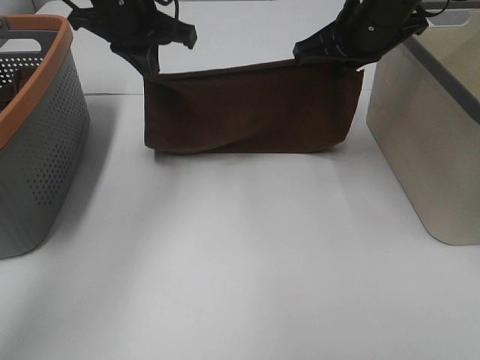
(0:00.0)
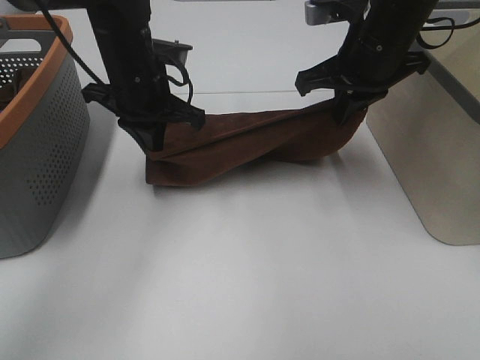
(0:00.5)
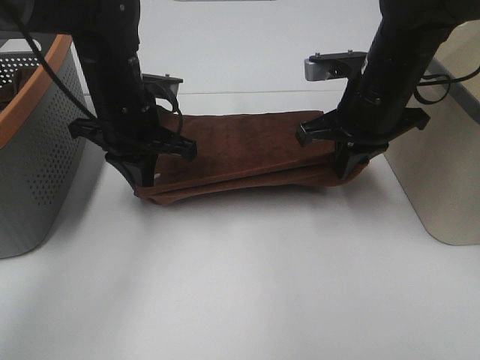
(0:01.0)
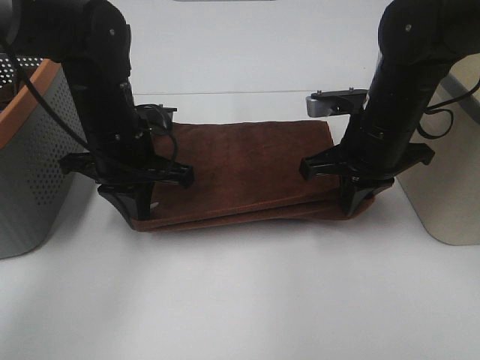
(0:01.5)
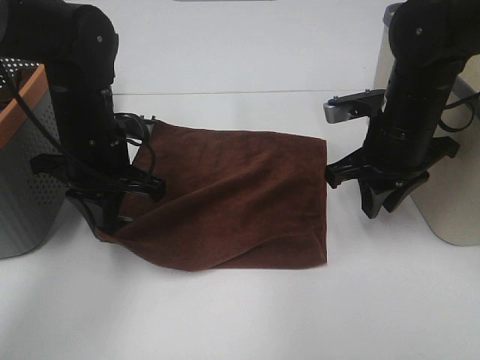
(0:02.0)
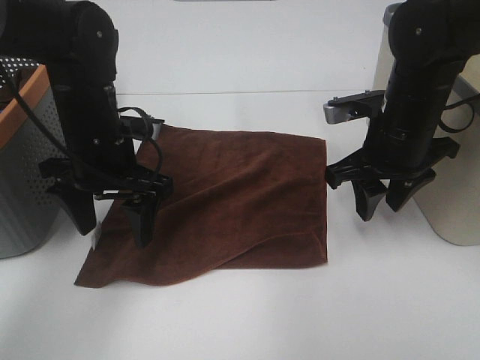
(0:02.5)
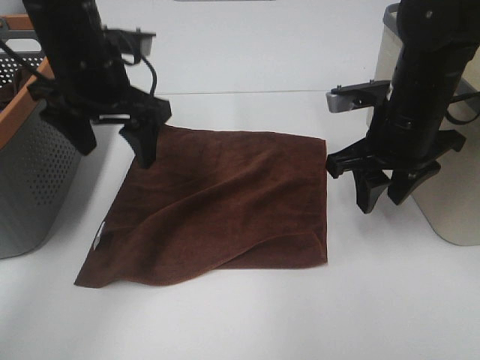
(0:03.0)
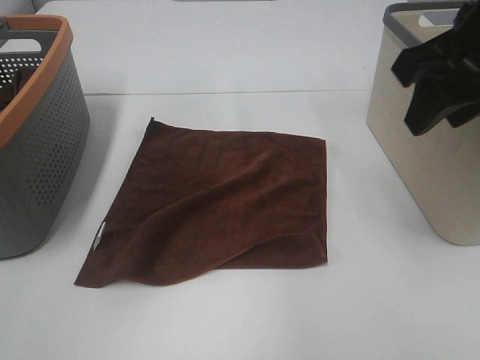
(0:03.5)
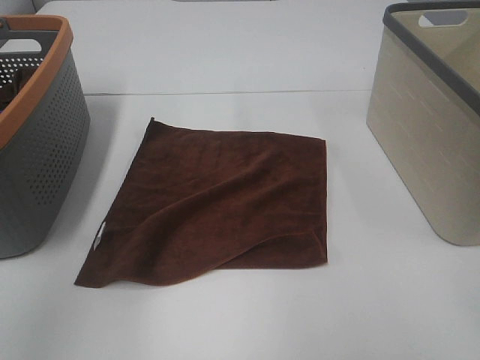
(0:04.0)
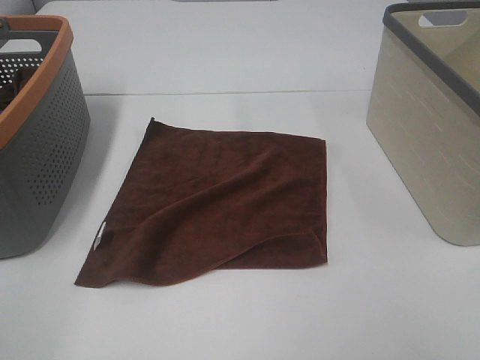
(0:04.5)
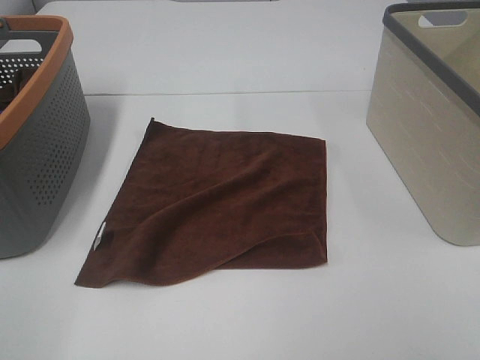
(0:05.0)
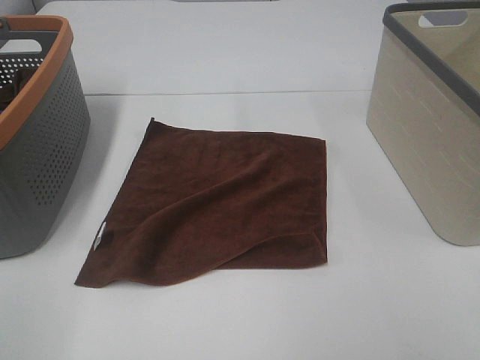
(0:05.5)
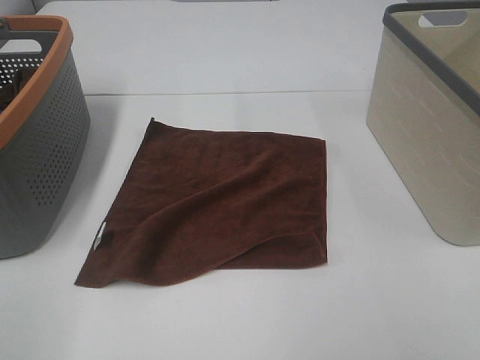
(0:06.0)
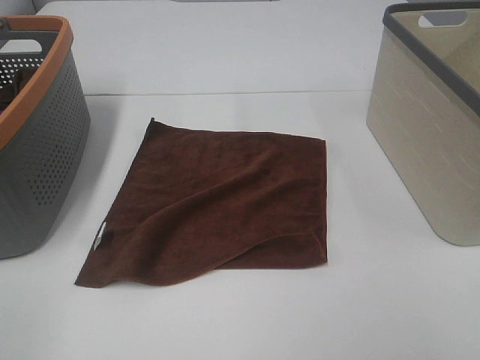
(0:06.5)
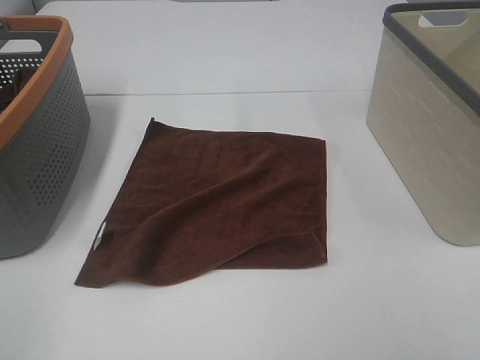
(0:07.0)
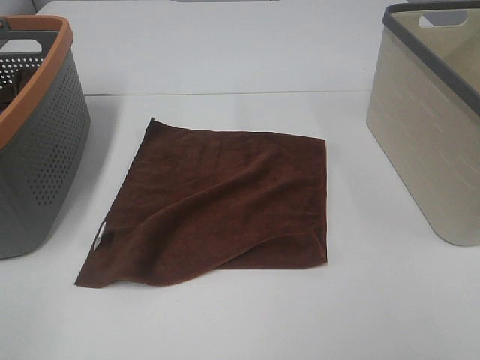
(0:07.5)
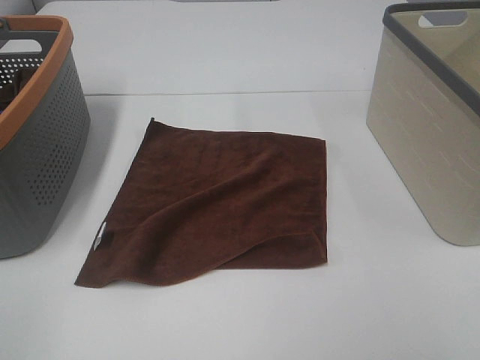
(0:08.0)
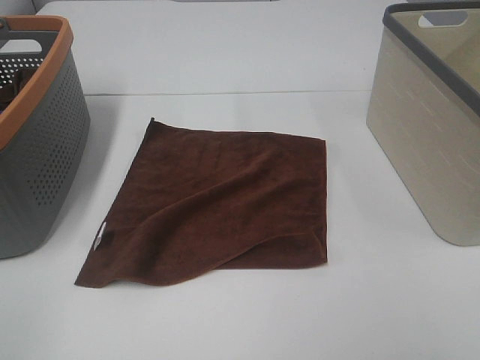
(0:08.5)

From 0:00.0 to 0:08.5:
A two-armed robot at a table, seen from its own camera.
Task of the whole recording: Remove the towel and place it.
From 0:00.0 to 0:02.0: The right gripper shifts some 10 cm downward and backward, and opens up, while the left gripper is displaced backward and downward by about 15 cm.
From 0:02.0 to 0:04.0: Both grippers move upward and backward, approximately 30 cm. The left gripper opens its fingers.
From 0:04.0 to 0:06.5: The left gripper is displaced backward, downward and to the left by approximately 20 cm.
From 0:06.5 to 0:08.5: Both grippers stay about where they are.

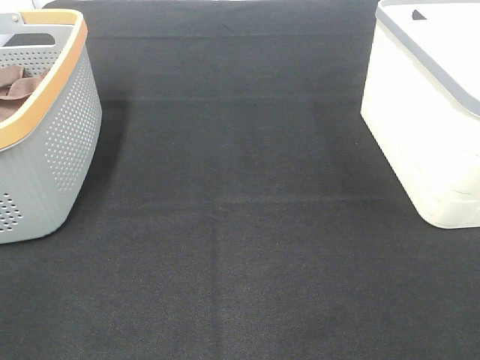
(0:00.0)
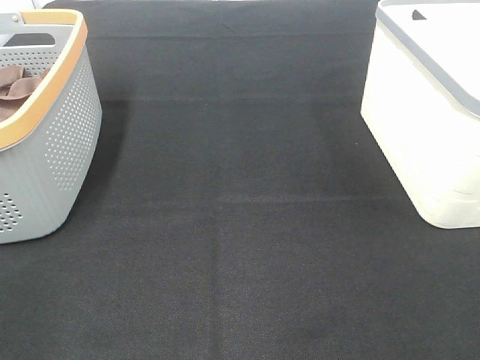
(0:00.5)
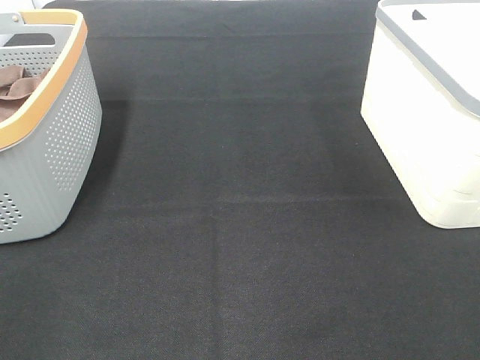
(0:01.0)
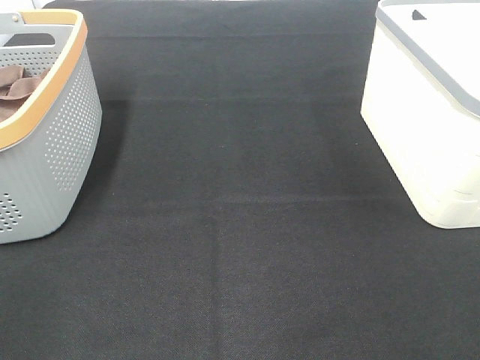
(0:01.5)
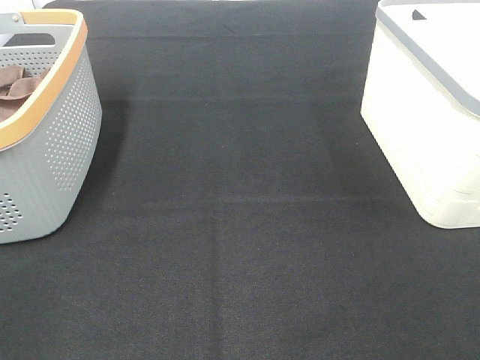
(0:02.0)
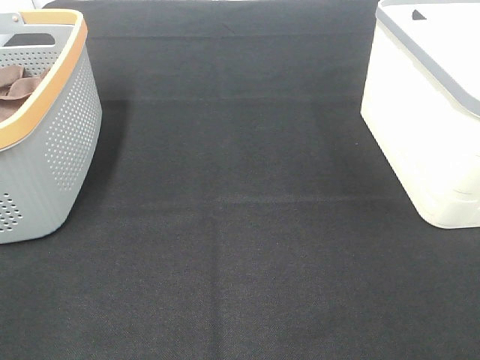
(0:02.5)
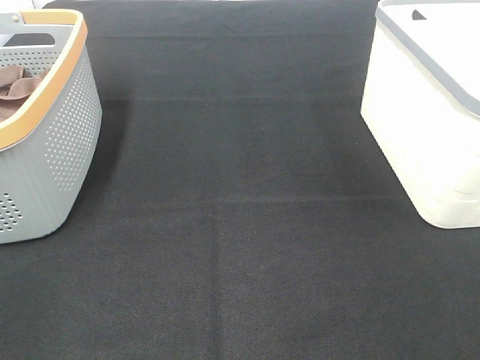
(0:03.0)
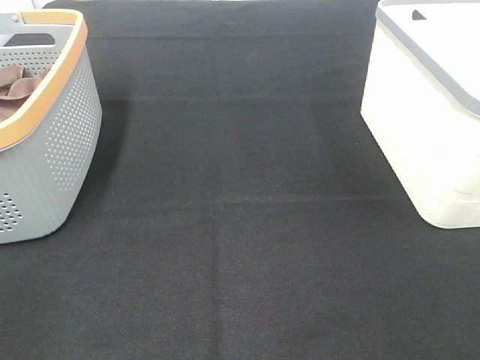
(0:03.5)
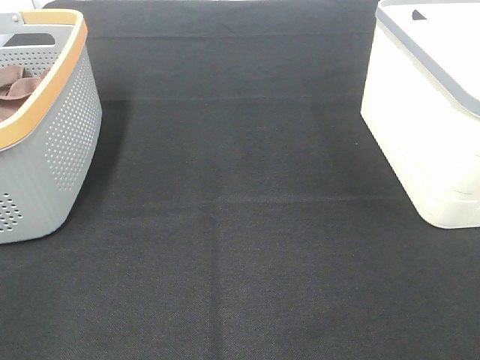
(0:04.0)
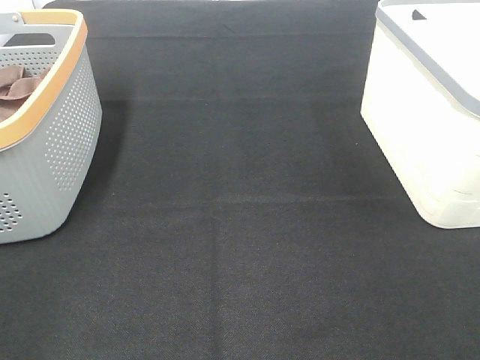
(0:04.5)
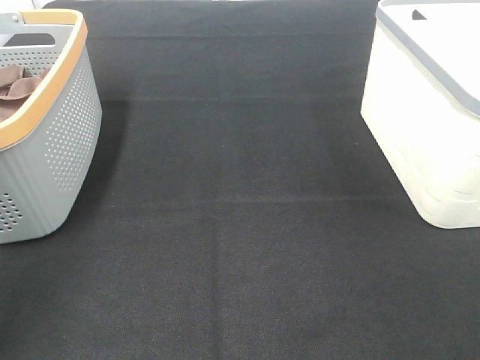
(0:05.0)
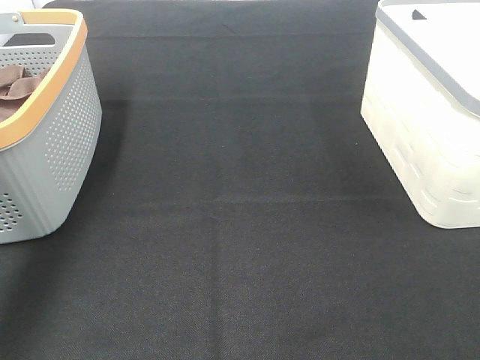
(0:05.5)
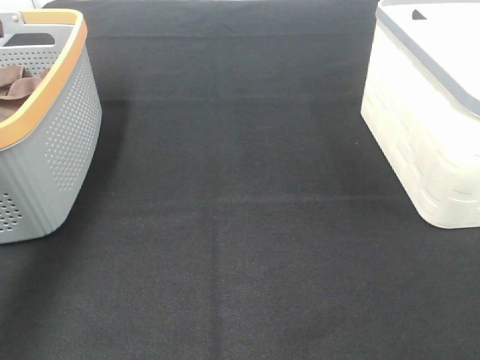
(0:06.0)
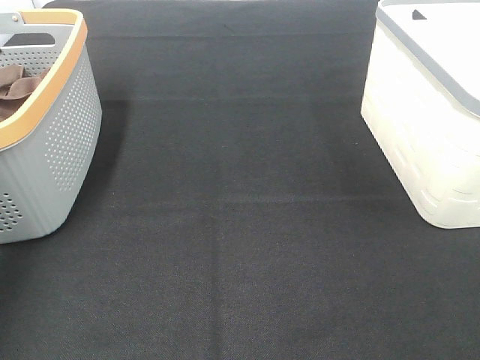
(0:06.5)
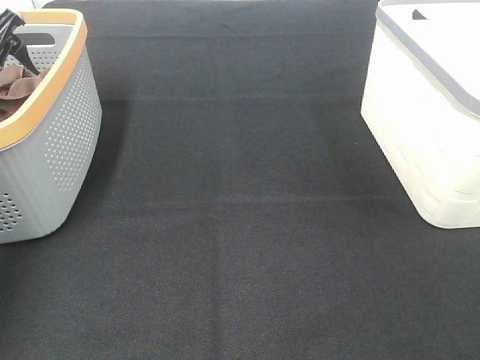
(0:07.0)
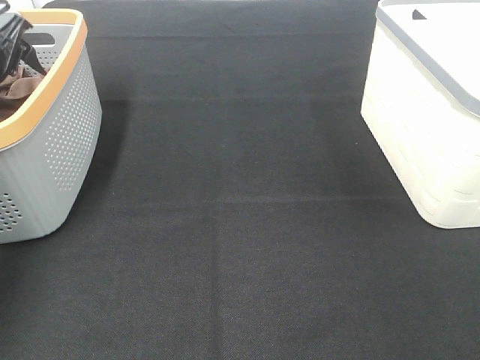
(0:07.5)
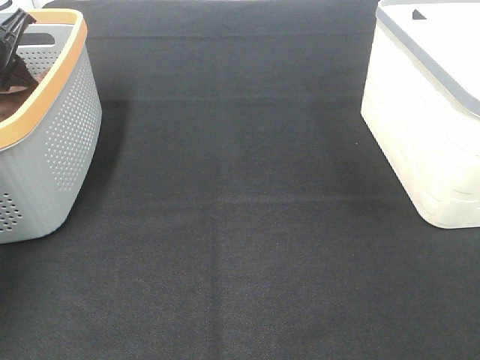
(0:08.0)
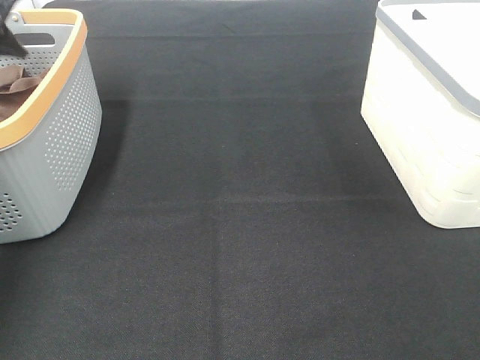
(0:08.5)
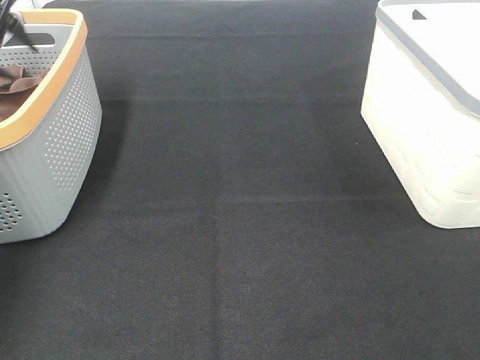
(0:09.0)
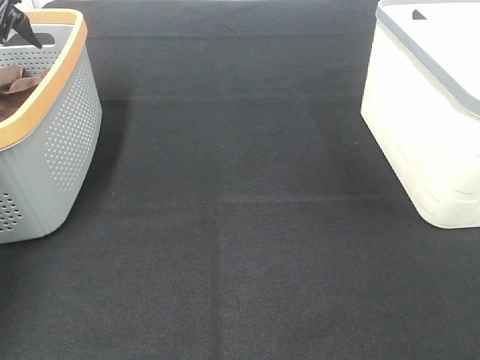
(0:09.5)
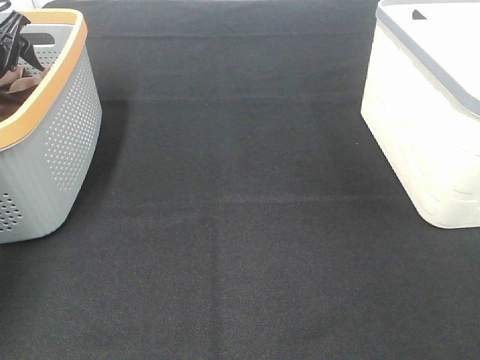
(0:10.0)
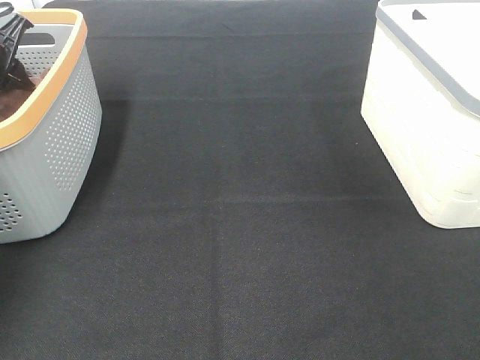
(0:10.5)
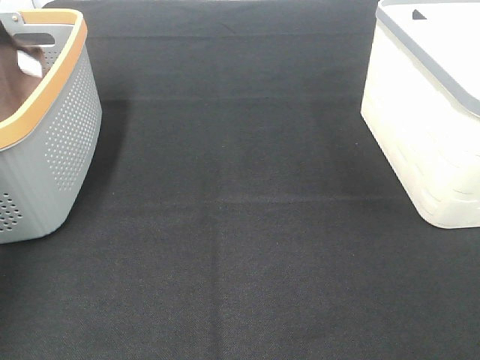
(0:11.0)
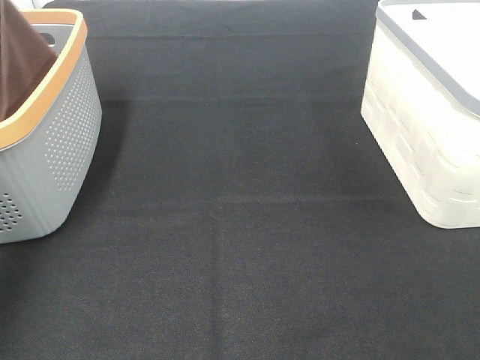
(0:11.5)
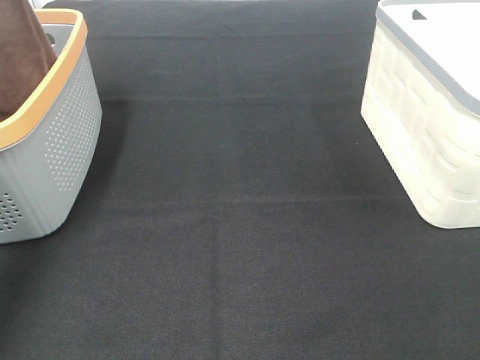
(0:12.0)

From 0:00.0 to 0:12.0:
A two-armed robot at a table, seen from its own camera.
Task of the whole recording: Remove the towel and place it.
From 0:02.0 to 0:04.0: Both grippers stay put.
From 0:04.0 to 0:06.0: The left gripper moves forward, approximately 35 cm.
From 0:06.0 to 0:08.0: The left gripper shifts approximately 15 cm downward, forward and to the left, and closes up.
From 0:08.0 to 0:10.0: The left gripper opens.
From 0:10.0 to 0:12.0: The left gripper travels upward and backward by roughly 30 cm, and closes up.

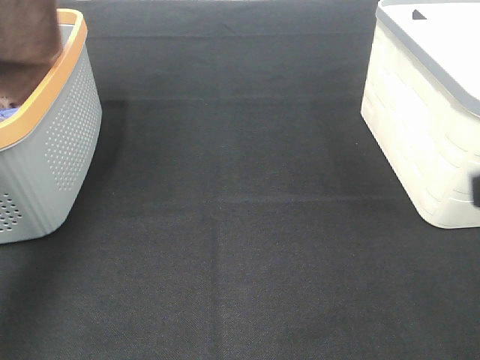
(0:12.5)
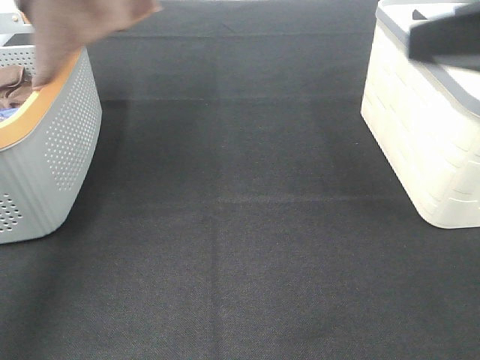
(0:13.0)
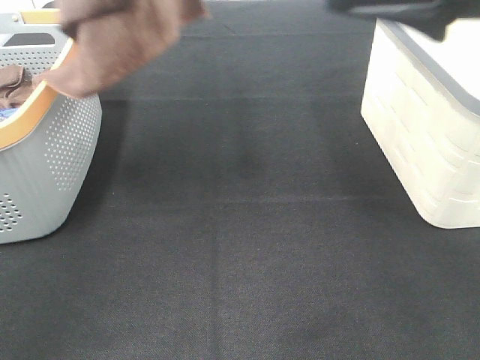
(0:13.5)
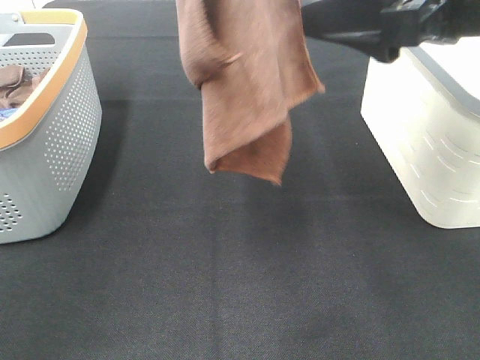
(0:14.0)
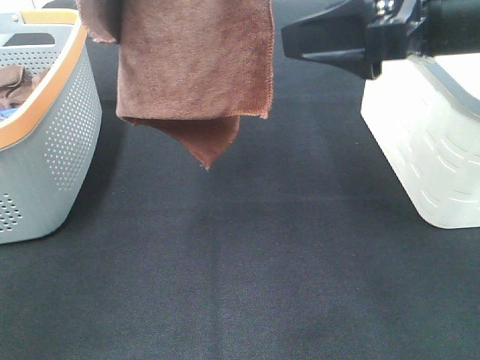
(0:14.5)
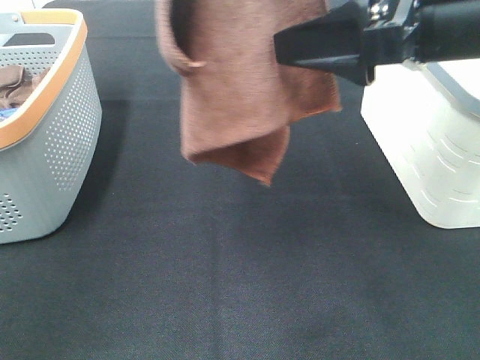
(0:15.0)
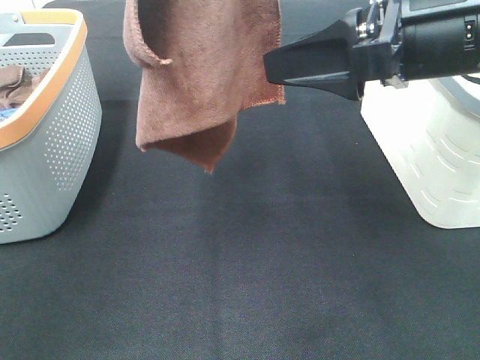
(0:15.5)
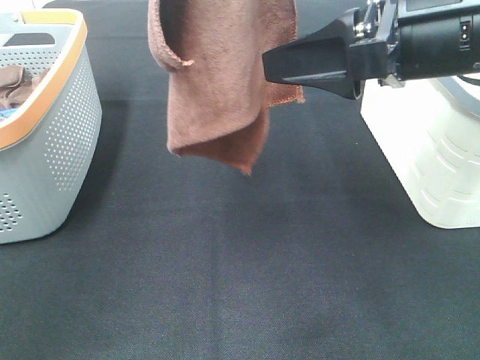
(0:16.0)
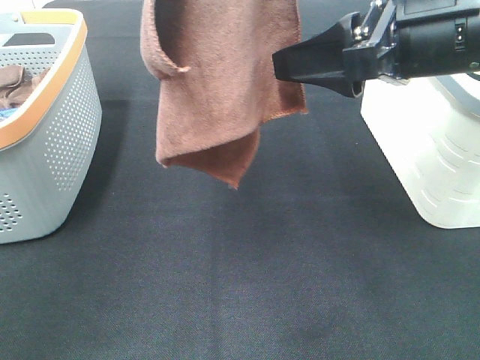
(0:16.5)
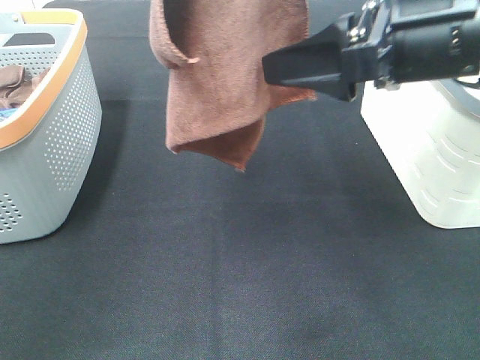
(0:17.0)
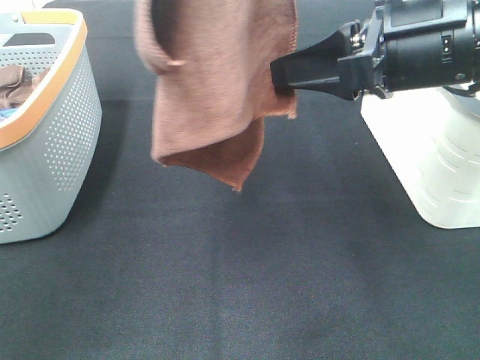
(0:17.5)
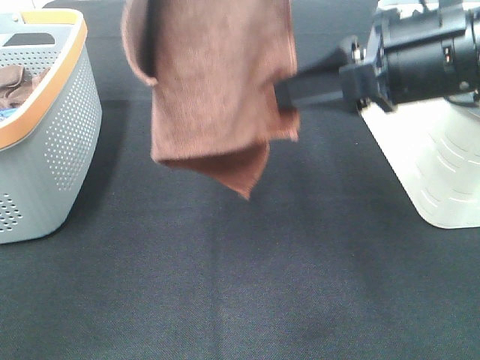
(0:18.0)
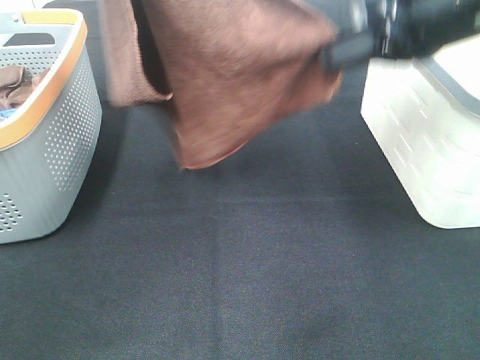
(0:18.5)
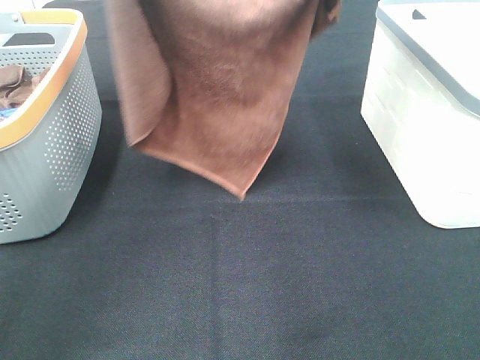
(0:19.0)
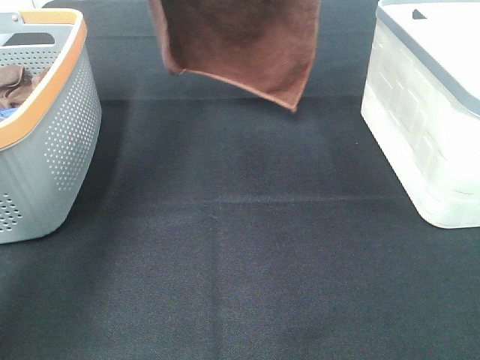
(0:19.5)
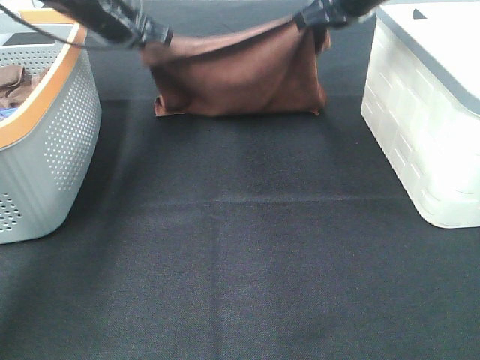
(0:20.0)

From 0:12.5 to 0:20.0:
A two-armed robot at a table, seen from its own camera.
Task of the whole recording: Remove the towel and place it.
Step, from 0:12.5 to 0:15.5: Right hand: grab a corner of the brown towel and straighten it.
Step, from 0:16.0 to 0:18.5: Left hand: spread the brown towel flat on the table.
Step, from 0:16.0 to 0:18.5: Right hand: spread the brown towel flat on the table.
From 0:12.5 to 0:14.5: The left gripper moves to the right and backward, about 15 cm, while the right gripper is displaced forward and to the left by about 15 cm.
From 0:14.5 to 0:16.5: There are only small adjustments of the grippers.
From 0:16.5 to 0:18.0: The right gripper closes.
From 0:18.0 to 0:20.0: The left gripper moves downward and forward, roughly 35 cm, while the right gripper heads forward, covering approximately 20 cm.
